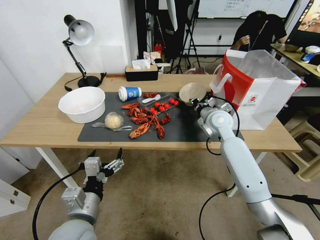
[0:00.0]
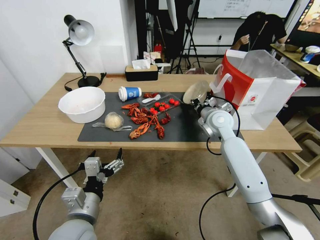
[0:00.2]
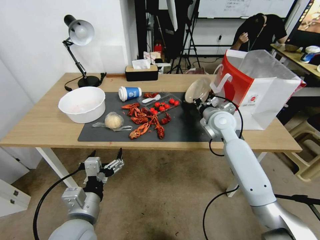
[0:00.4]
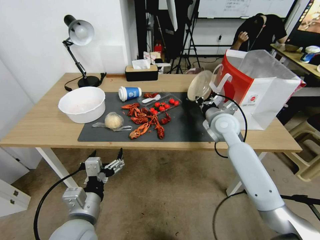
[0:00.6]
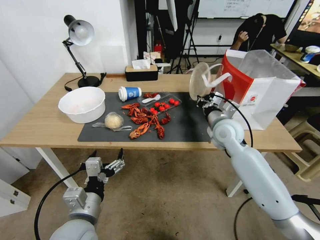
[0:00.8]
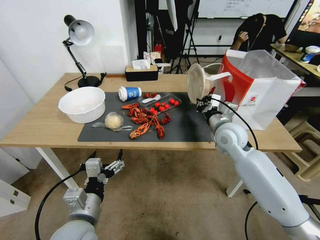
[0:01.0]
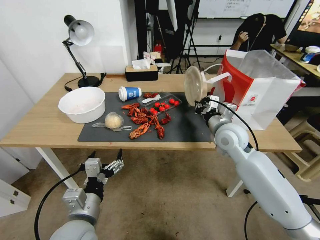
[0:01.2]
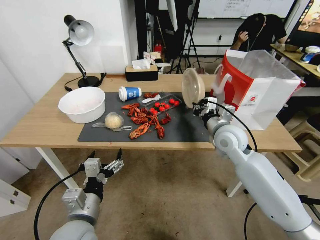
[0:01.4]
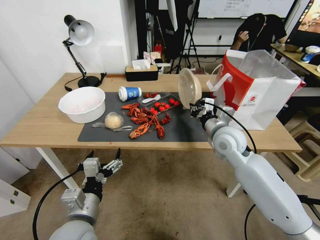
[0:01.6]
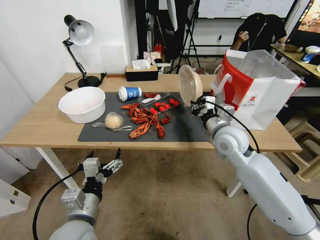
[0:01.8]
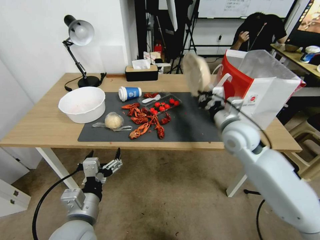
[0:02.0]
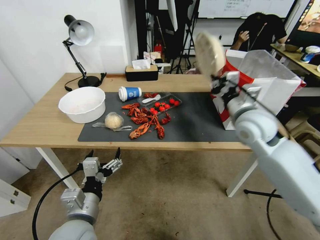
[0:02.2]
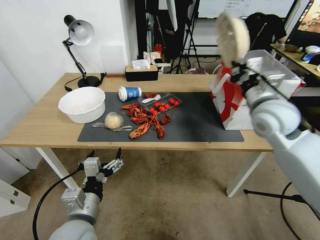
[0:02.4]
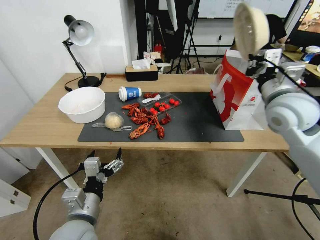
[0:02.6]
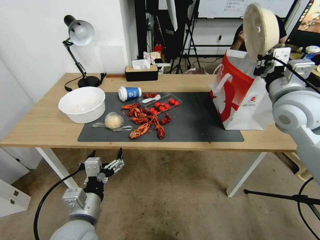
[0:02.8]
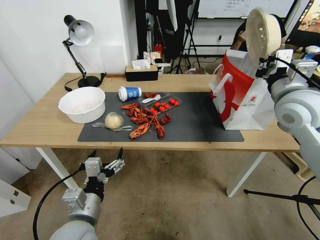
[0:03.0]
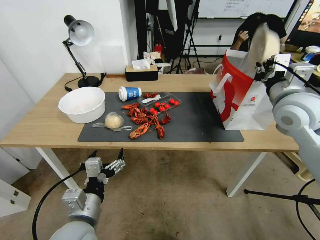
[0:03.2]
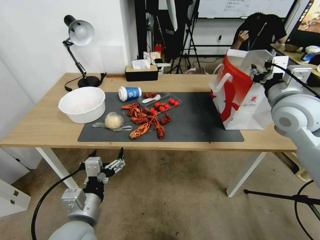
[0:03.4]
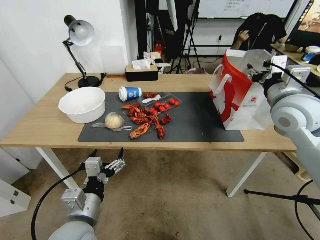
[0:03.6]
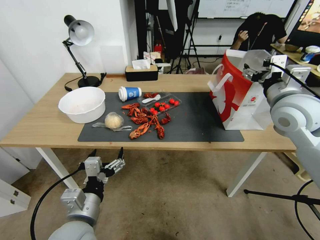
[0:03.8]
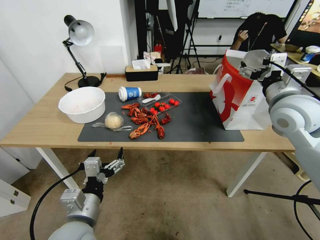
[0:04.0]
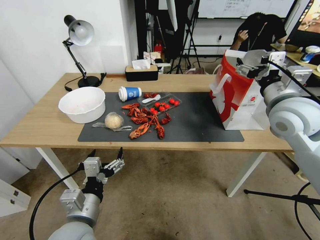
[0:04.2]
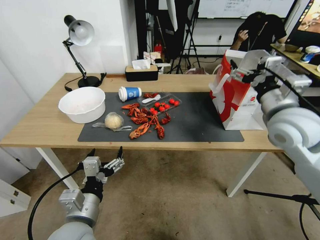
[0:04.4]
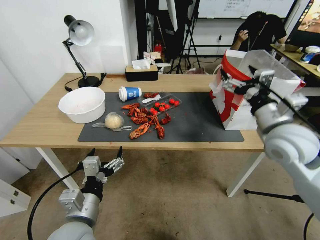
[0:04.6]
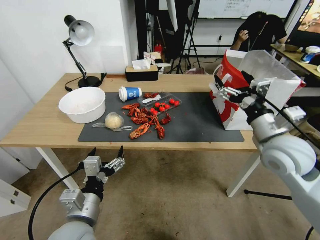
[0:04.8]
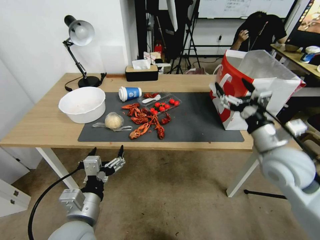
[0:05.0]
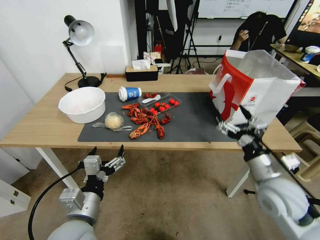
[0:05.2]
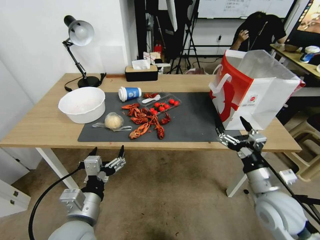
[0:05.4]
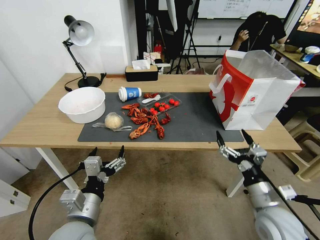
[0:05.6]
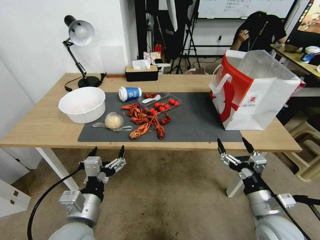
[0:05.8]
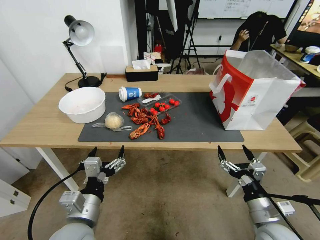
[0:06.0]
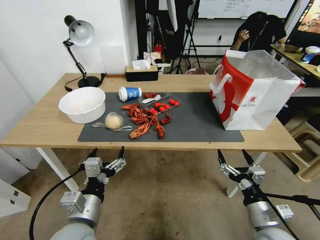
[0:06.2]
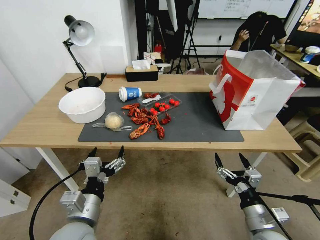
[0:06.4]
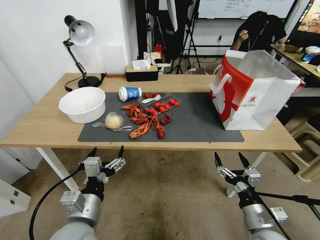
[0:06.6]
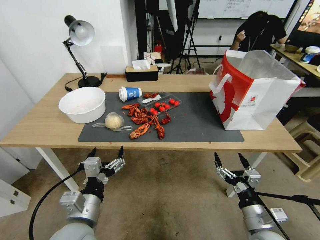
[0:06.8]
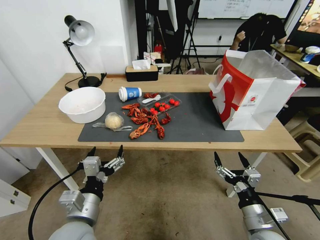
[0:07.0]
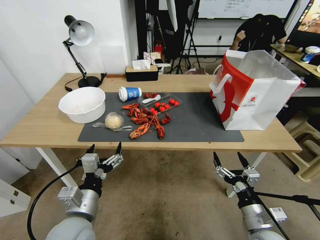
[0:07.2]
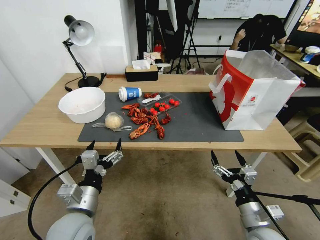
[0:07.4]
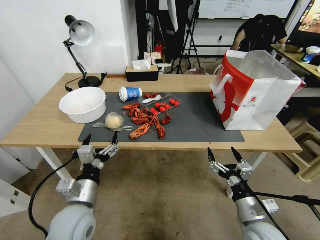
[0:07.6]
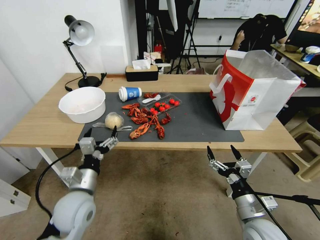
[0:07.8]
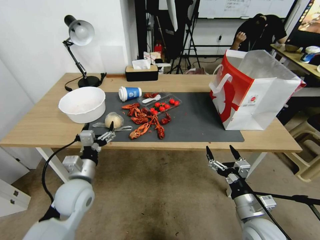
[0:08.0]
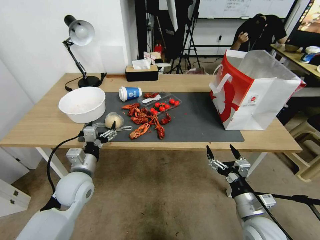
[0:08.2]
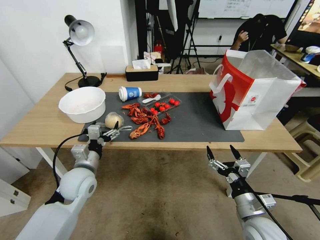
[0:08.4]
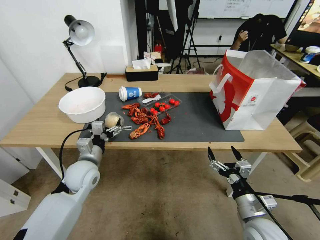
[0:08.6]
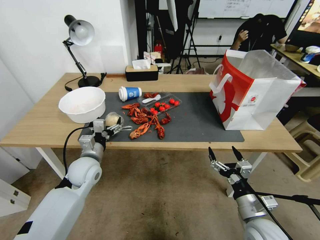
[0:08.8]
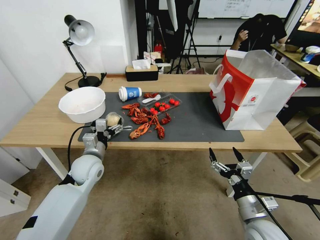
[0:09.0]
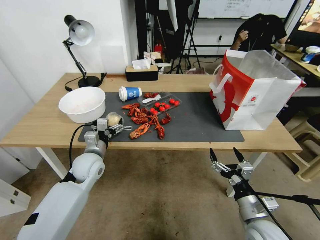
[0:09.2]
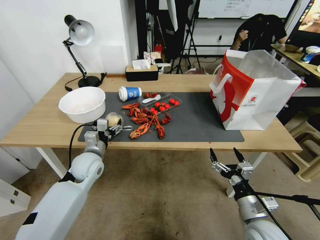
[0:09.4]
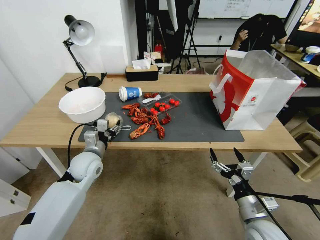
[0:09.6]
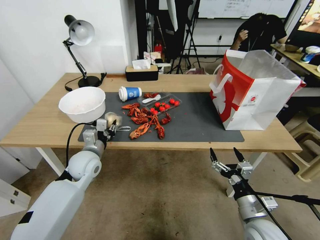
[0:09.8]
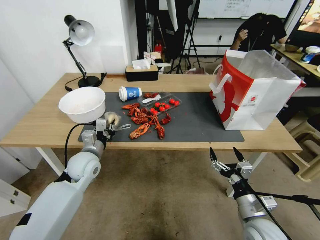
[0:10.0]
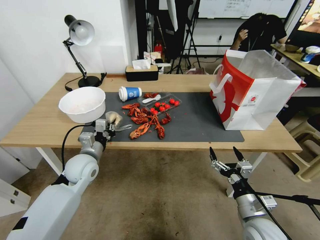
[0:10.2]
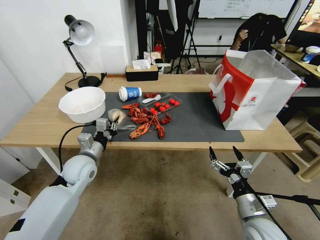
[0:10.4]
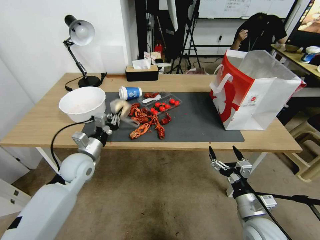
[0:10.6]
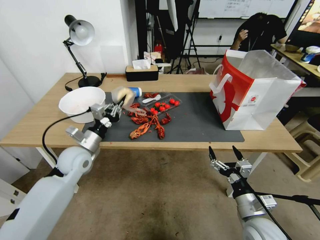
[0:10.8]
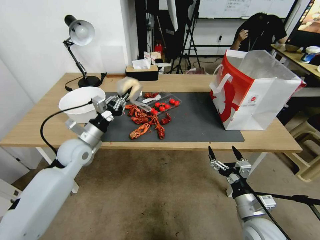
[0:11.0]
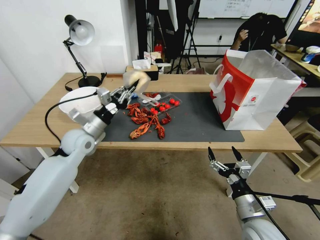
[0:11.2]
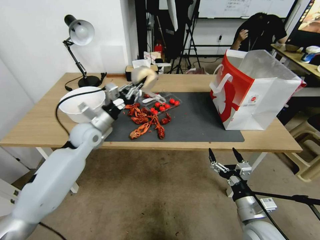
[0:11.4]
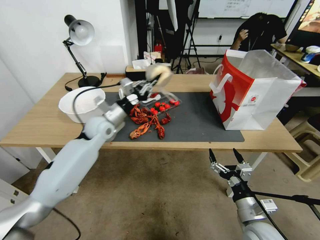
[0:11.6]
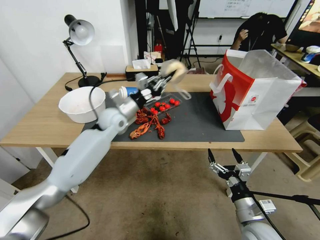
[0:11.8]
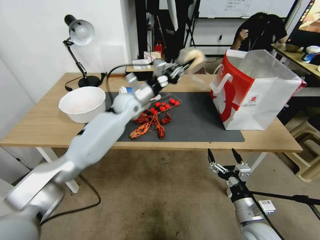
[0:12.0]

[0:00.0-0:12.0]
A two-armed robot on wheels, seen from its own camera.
0:00.0 to 0:01.6: The right gripper shifts some 10 cm backward.
0:01.6 to 0:03.0: The right gripper heads upward and to the right, covering some 20 cm.
0:03.0 to 0:04.4: The right gripper opens up.
0:04.4 to 0:06.0: The right gripper shifts approximately 30 cm downward and backward.
0:06.0 to 0:07.6: The left gripper shifts by roughly 5 cm.
0:07.6 to 0:09.0: The left gripper is displaced forward by some 15 cm.
0:09.0 to 0:10.4: The left gripper closes.
0:10.4 to 0:12.0: The left gripper is displaced forward, to the right and upward by roughly 25 cm.

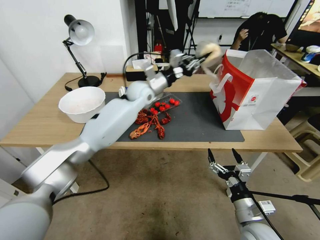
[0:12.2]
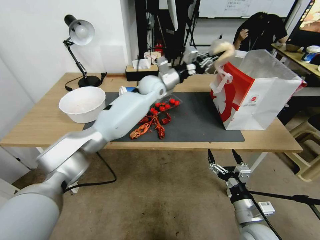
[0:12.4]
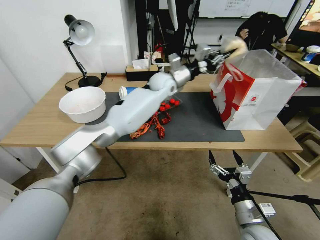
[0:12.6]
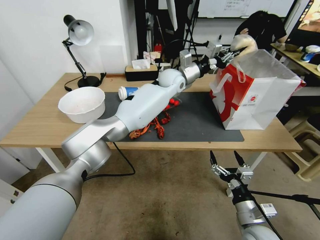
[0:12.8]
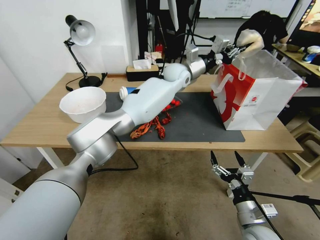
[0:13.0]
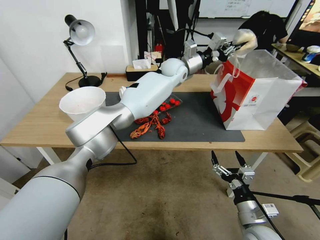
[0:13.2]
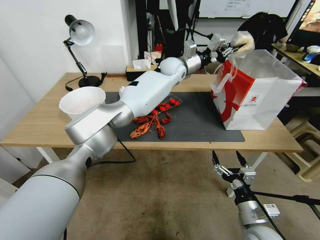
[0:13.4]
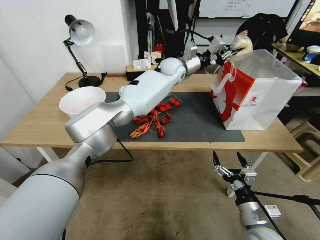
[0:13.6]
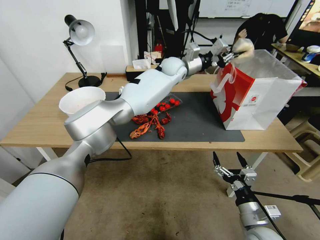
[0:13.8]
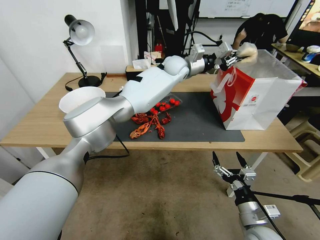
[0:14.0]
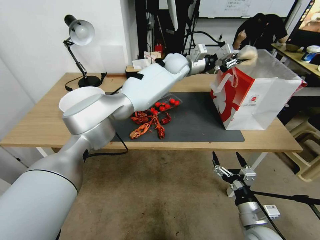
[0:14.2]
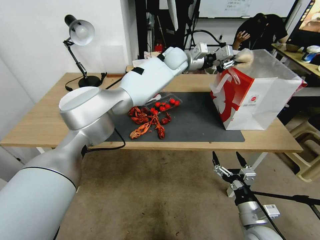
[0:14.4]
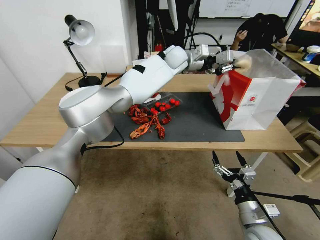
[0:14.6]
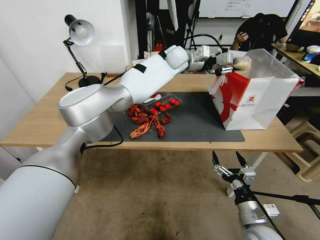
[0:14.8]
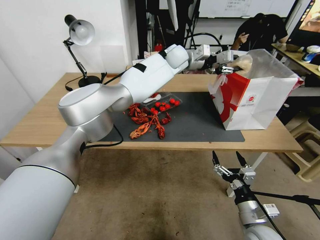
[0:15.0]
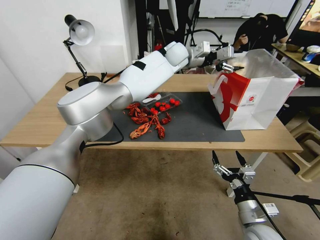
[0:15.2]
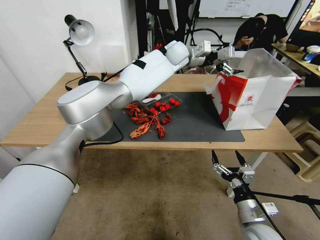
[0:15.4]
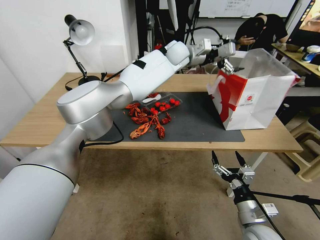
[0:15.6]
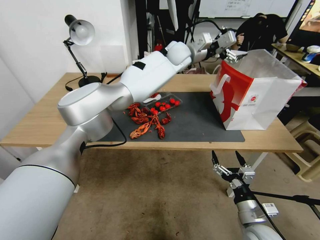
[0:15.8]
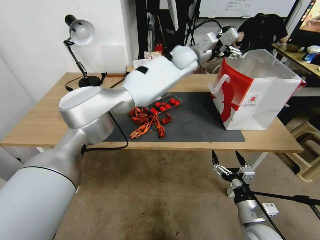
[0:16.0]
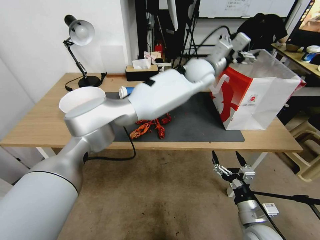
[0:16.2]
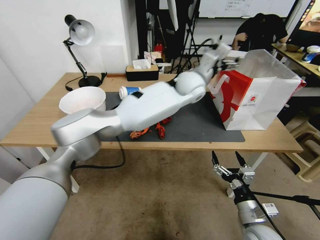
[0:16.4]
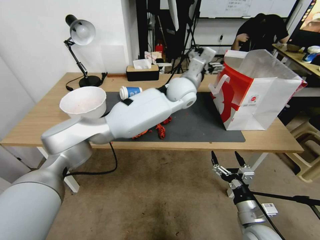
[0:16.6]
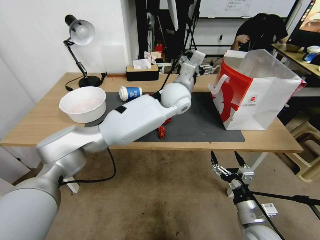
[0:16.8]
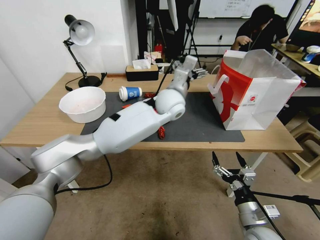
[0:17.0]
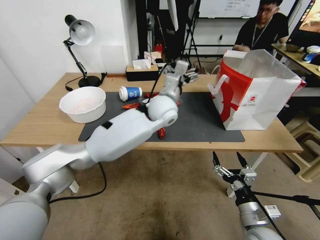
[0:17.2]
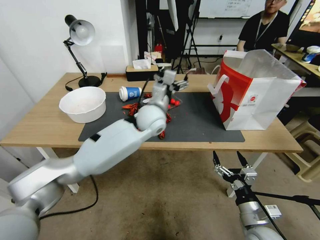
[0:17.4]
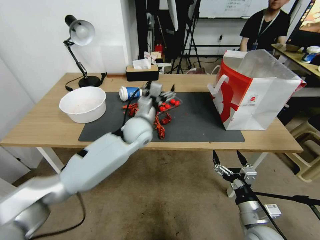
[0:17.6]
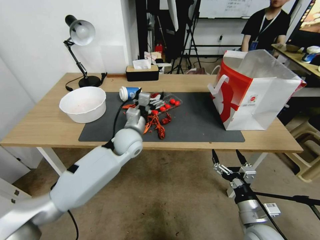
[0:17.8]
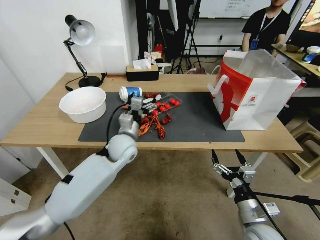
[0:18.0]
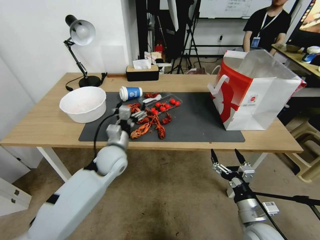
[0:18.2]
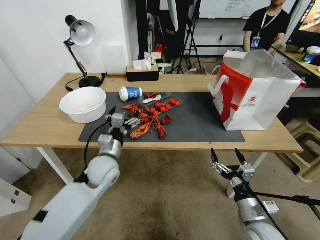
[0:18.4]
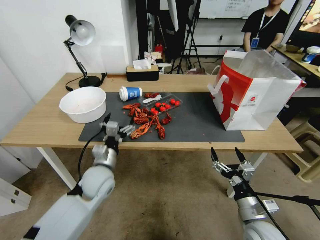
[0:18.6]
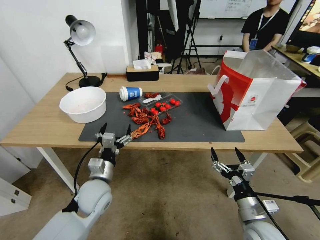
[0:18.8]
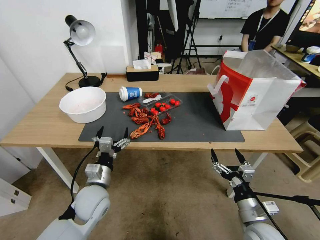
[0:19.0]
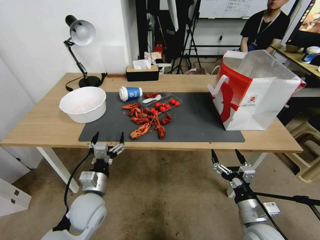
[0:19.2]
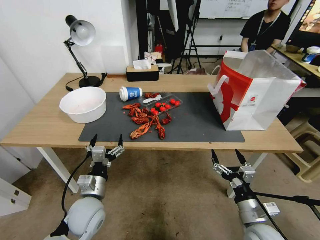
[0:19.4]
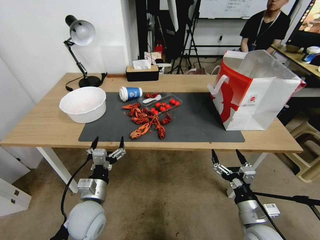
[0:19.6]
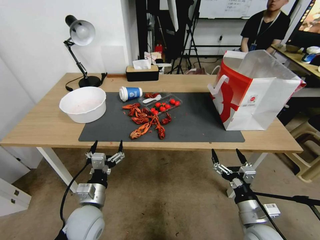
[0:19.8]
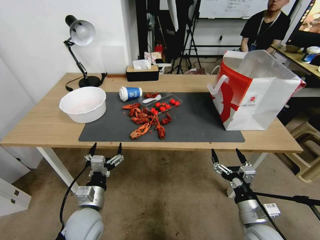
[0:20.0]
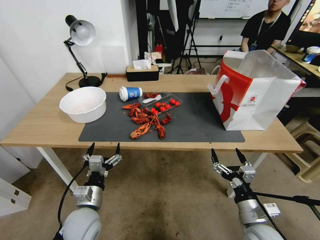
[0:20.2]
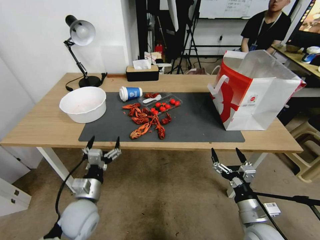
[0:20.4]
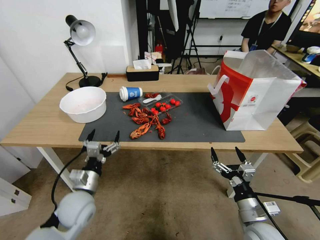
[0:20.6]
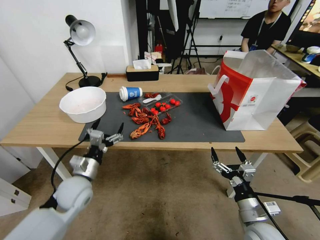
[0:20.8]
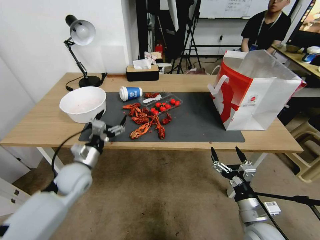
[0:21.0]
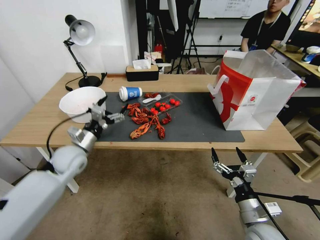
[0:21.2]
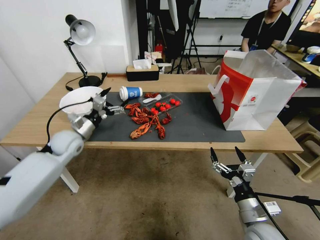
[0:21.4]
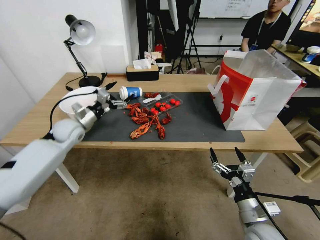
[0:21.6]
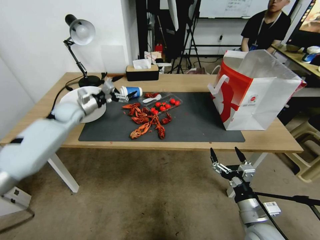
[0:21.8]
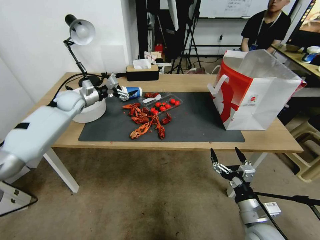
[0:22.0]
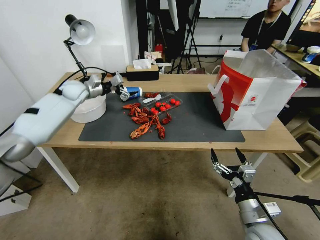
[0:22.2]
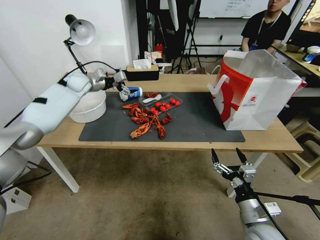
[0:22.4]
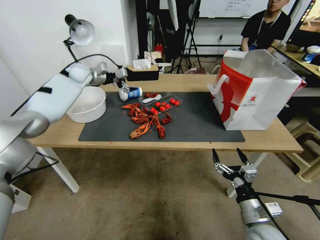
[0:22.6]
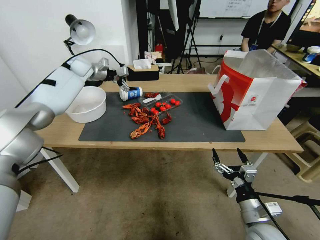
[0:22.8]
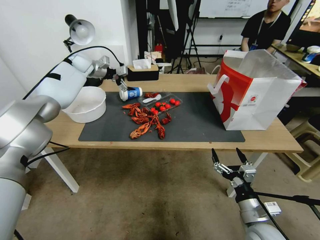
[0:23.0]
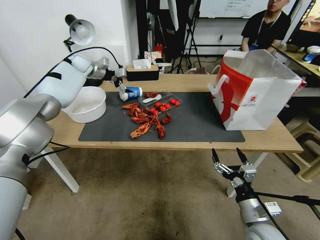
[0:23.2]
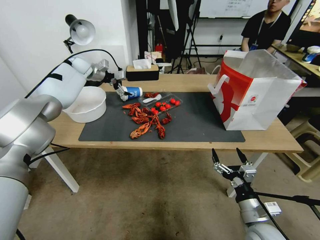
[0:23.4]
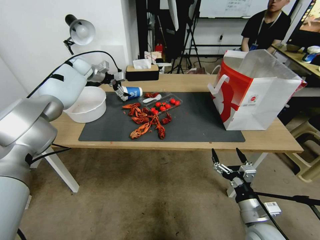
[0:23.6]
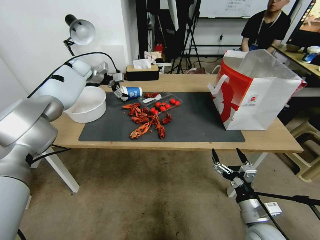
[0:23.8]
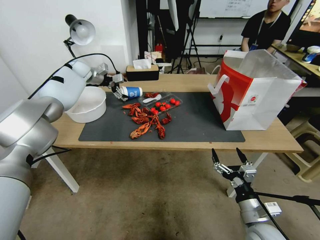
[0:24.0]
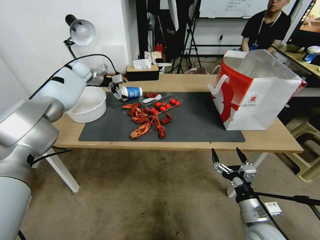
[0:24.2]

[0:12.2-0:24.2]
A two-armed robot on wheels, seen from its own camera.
0:12.2 to 0:13.8: The left gripper travels to the right, forward and upward by roughly 15 cm.
0:13.8 to 0:15.2: The left gripper moves upward, some 5 cm, and opens its fingers.
0:15.2 to 0:16.6: The left gripper travels backward and downward by roughly 15 cm, and opens up.
0:16.6 to 0:18.2: The left gripper travels to the left, downward and backward by about 30 cm.
0:18.2 to 0:19.8: The left gripper heads backward, to the left and downward, covering some 25 cm.
0:19.8 to 0:21.2: The left gripper is displaced forward, to the left and upward by about 20 cm.
0:21.2 to 0:22.6: The left gripper travels forward and upward by some 30 cm.
0:22.6 to 0:24.2: The left gripper moves roughly 5 cm.
